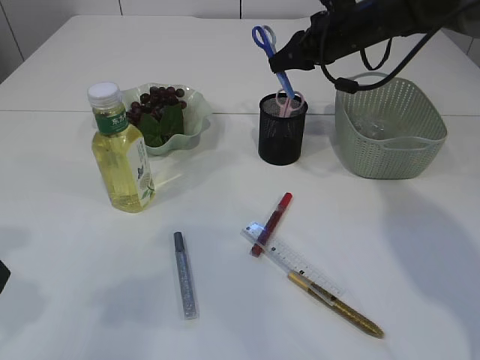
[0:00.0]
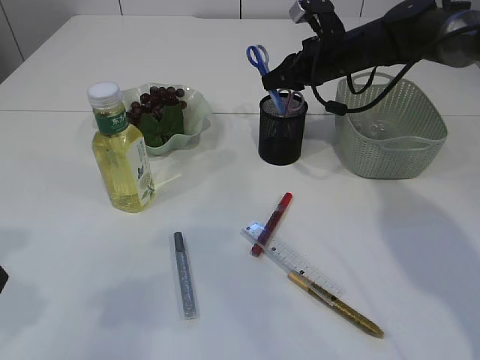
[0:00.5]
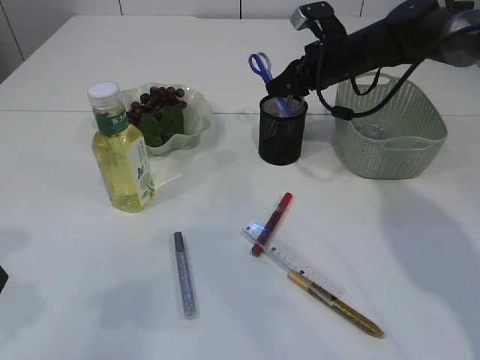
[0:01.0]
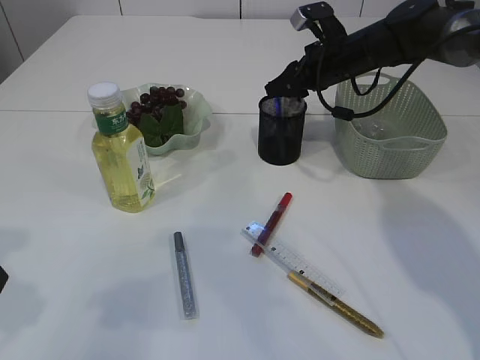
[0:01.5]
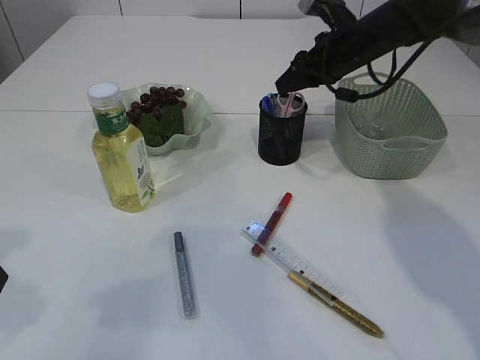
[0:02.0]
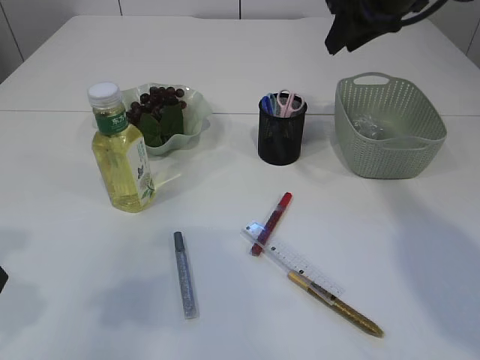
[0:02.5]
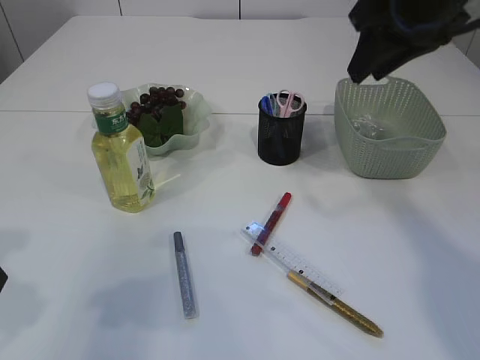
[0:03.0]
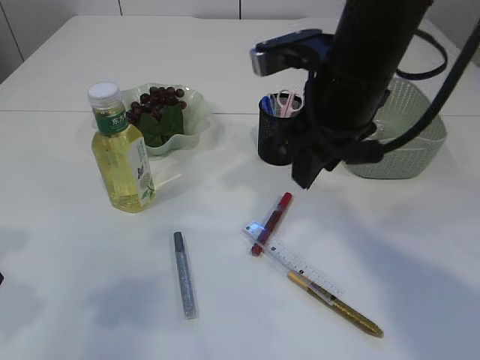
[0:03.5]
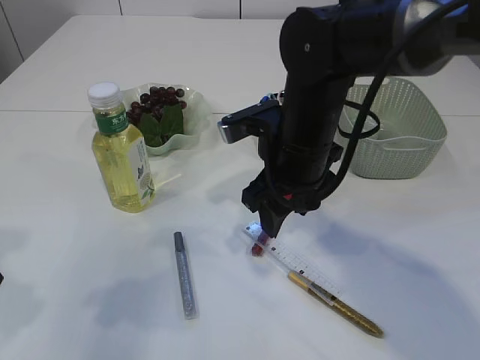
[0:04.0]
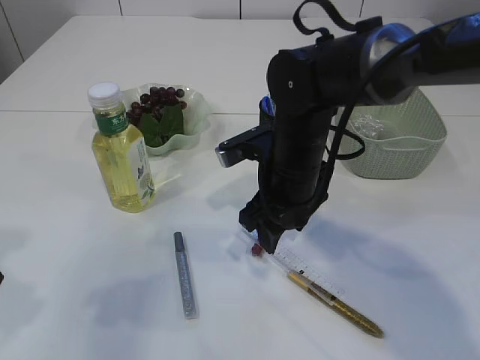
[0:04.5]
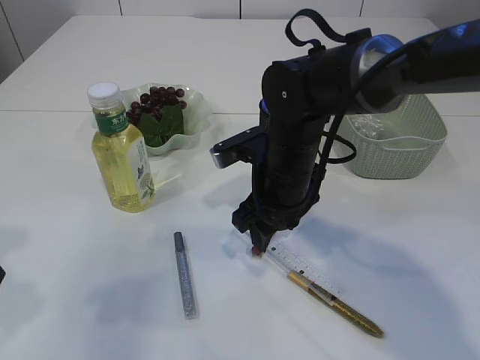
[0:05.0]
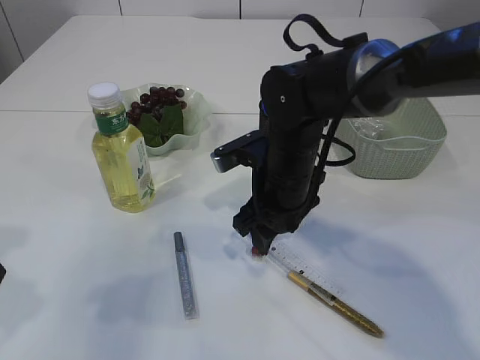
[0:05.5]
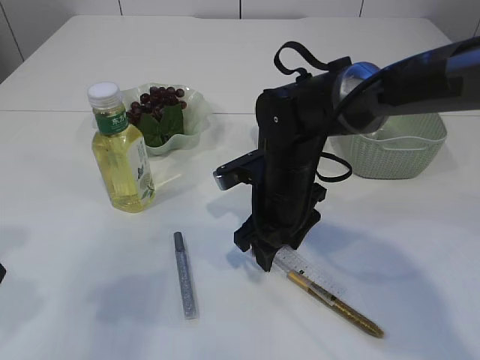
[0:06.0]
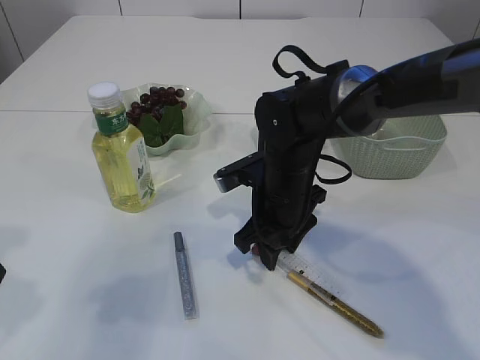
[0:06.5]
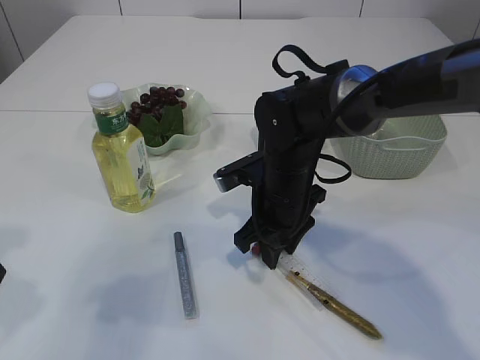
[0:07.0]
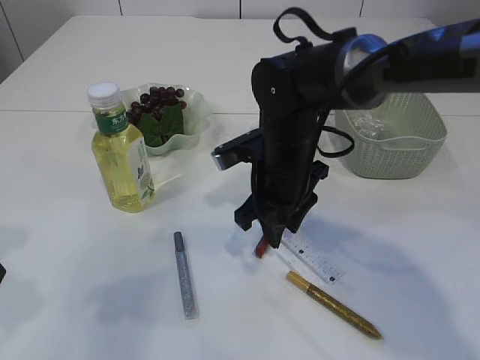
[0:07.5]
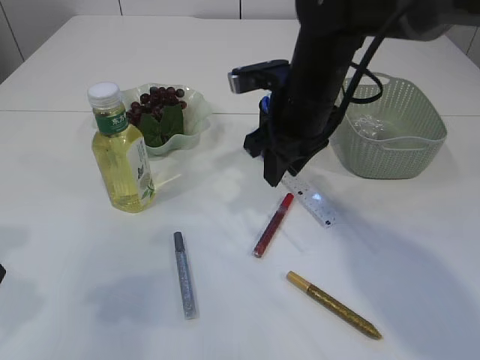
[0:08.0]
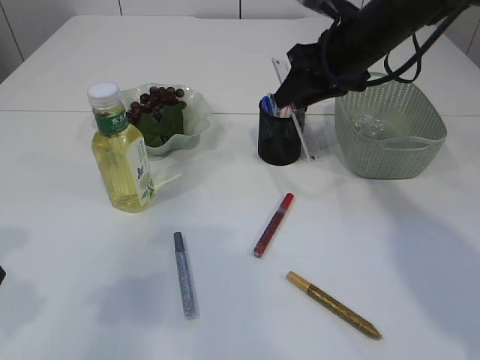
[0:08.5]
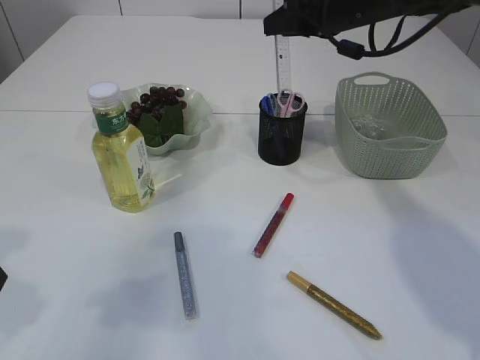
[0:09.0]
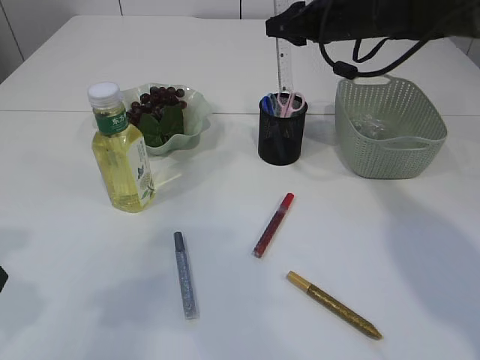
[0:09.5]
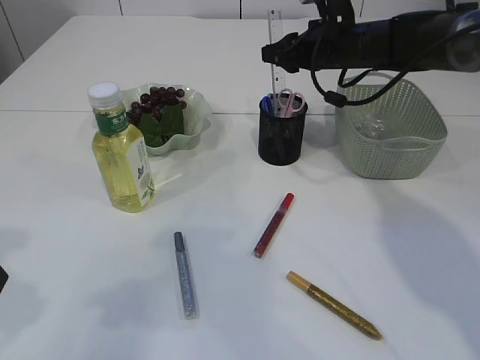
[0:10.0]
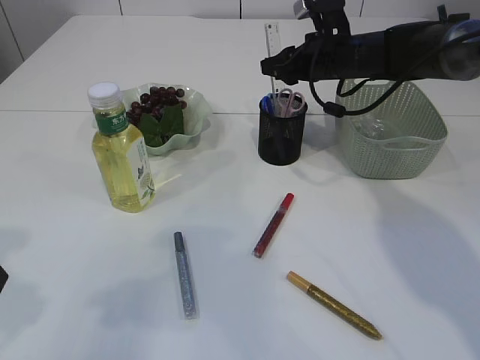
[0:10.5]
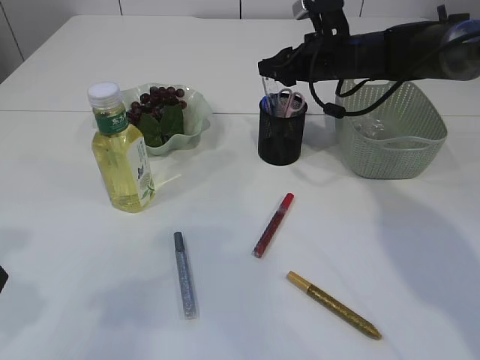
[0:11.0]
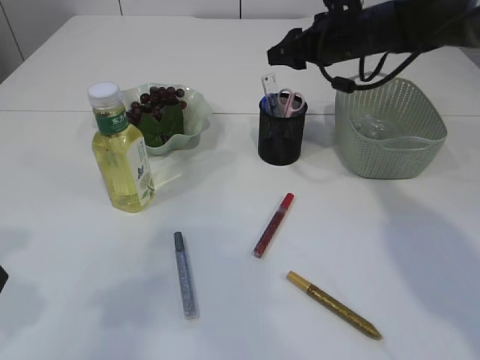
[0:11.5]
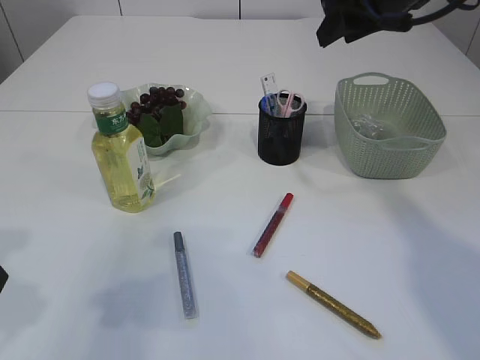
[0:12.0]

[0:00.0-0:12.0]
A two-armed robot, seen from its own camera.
Step, 0:00.0 to 0:02.0: Place the blue scissors into the pen holder.
Step, 0:02.5 to 0:07.5: pick up the ruler.
Step, 0:08.0 to 0:11.5: Place the ruler into the pen holder.
0:00.0 to 0:02.0: The grippers make only small movements.
0:02.0 to 0:04.0: The right gripper heads backward and to the left, covering about 20 cm, and opens up.
0:04.0 to 0:06.0: The right gripper is displaced downward by about 10 cm.
0:06.0 to 0:08.0: The right gripper goes about 10 cm upward, and closes up.
0:08.0 to 0:10.0: The right gripper shifts roughly 15 cm forward and to the right.
0:10.0 to 0:12.0: The right gripper moves upward and backward, about 15 cm.

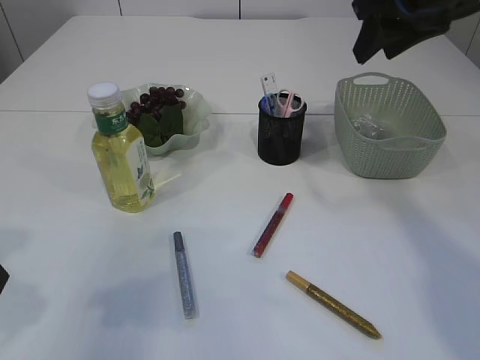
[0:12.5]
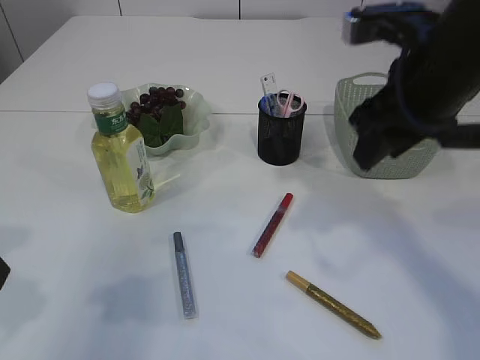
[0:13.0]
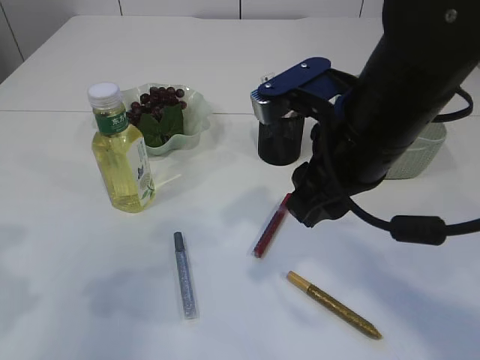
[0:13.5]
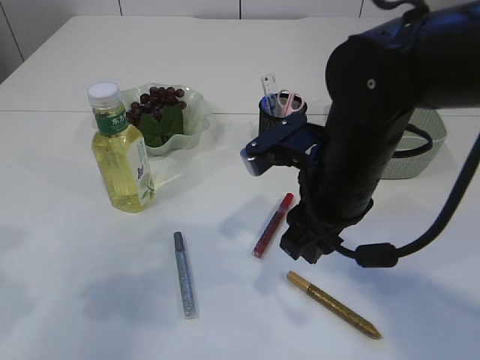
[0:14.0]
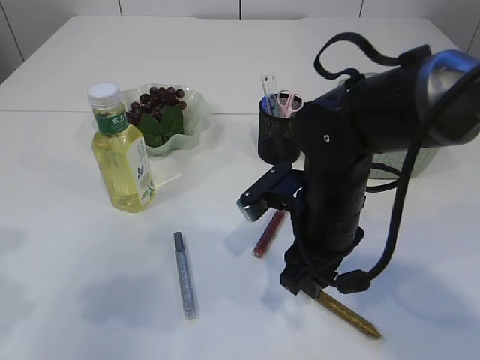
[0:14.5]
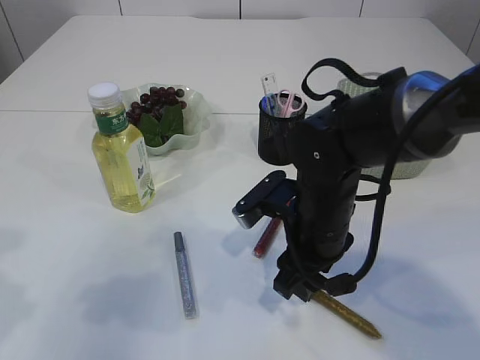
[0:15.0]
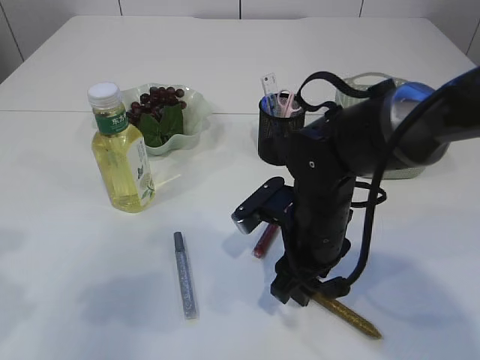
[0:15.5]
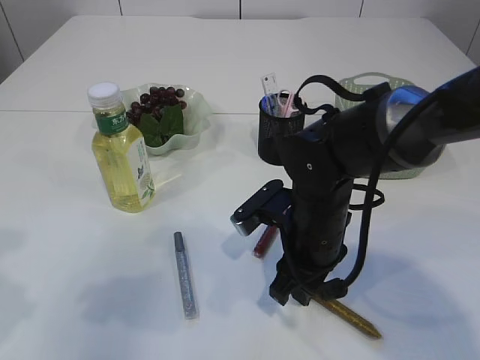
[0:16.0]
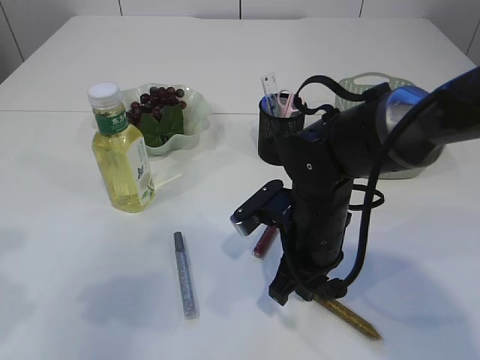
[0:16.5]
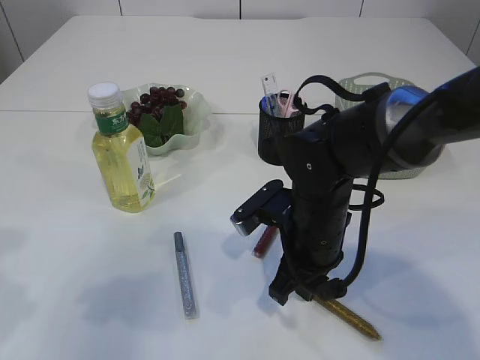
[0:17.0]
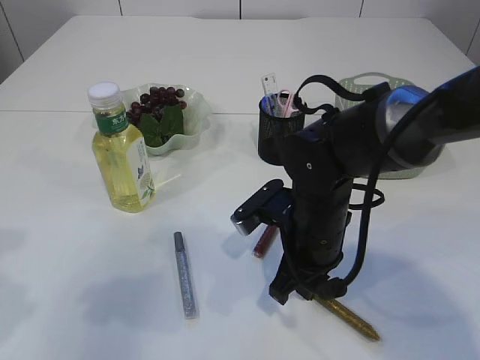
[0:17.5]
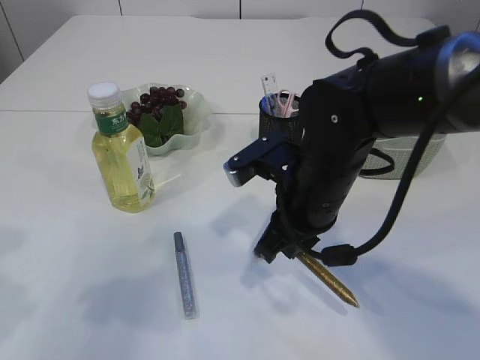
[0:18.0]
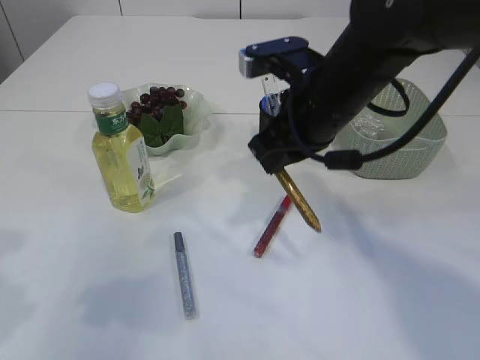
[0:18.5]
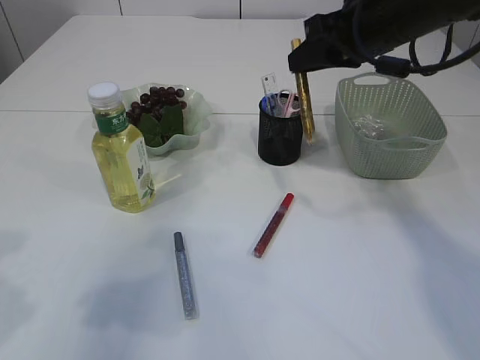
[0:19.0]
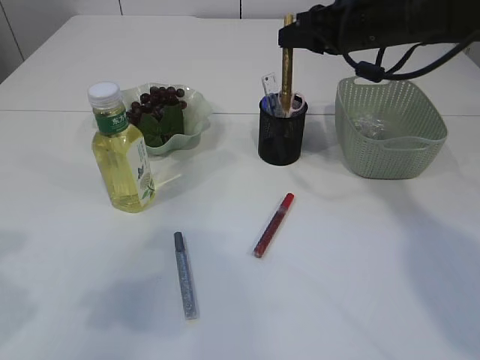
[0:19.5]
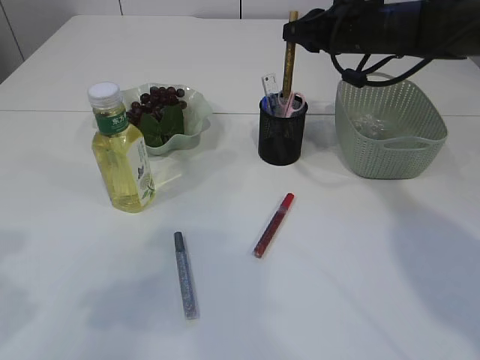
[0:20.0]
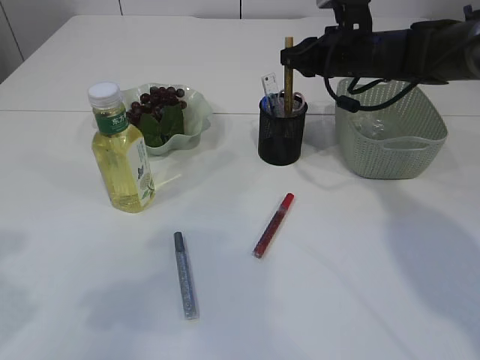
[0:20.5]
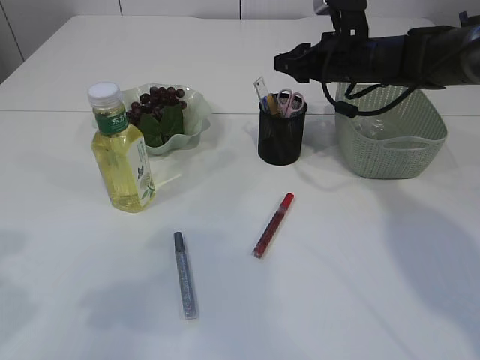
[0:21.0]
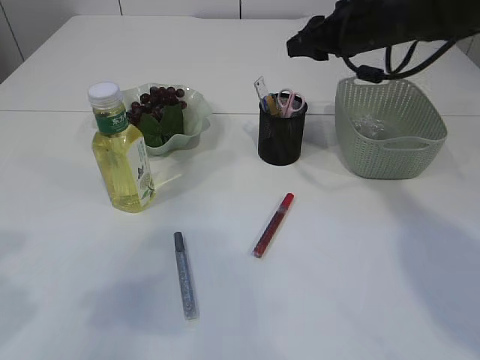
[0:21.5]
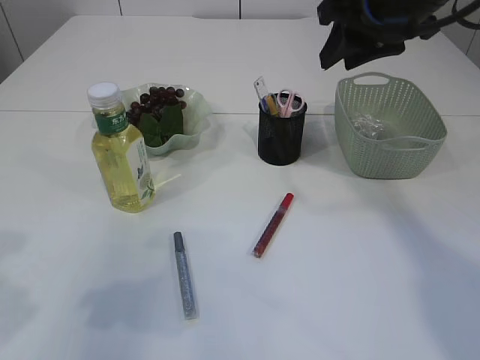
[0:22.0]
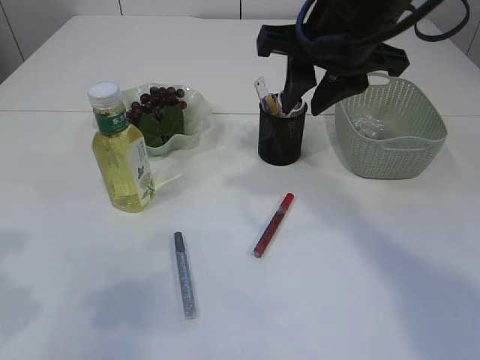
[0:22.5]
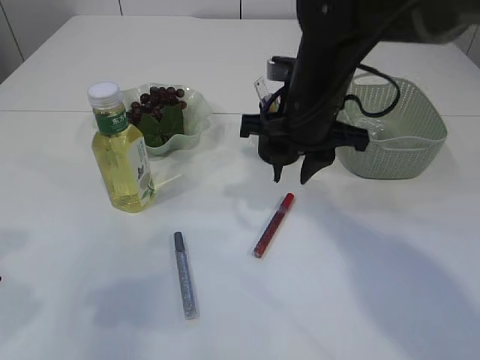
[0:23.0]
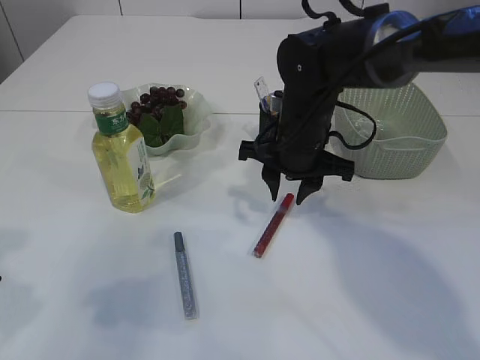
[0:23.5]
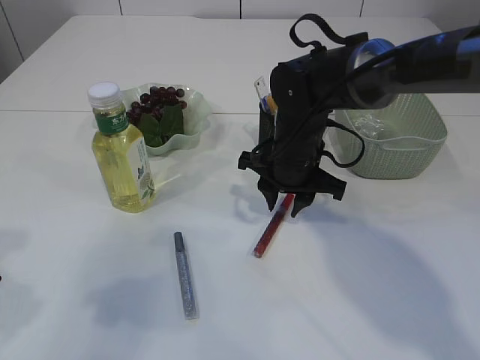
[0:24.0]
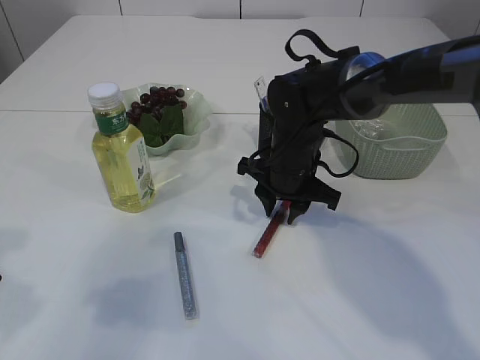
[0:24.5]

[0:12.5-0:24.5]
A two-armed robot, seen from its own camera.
Step, 0:12.5 to 0:18.0: pick up the yellow glue.
Step, 0:18.5 to 0:21.0: place the yellow glue into the pen holder.
0:12.5 to 0:14.5: The right gripper travels downward, to the left and backward by about 25 cm.
0:14.5 to 0:16.5: The right gripper closes its fingers.
0:16.5 to 0:18.5: The right gripper heads upward, covering approximately 15 cm.
0:18.5 to 0:20.5: The right gripper heads forward and to the right, covering roughly 20 cm.
0:20.5 to 0:22.5: The right gripper moves backward, upward and to the left, approximately 20 cm, and opens up.
0:22.5 to 0:24.5: The right gripper goes roughly 20 cm downward.

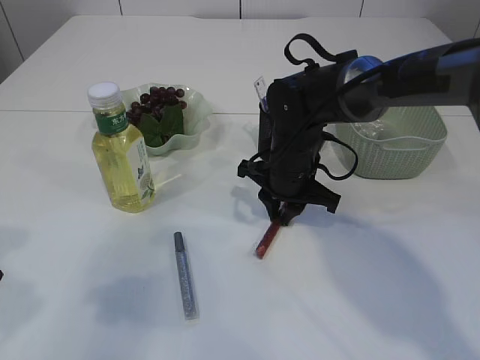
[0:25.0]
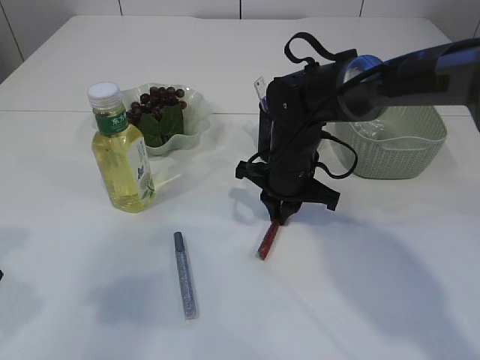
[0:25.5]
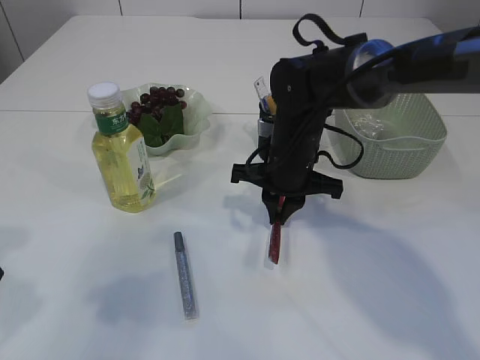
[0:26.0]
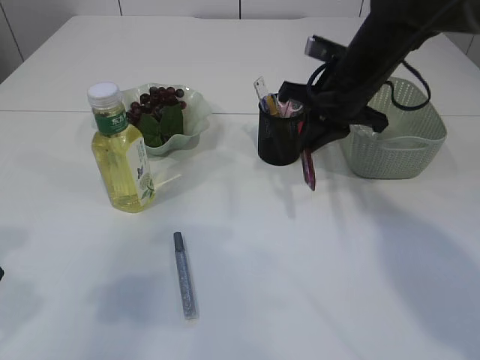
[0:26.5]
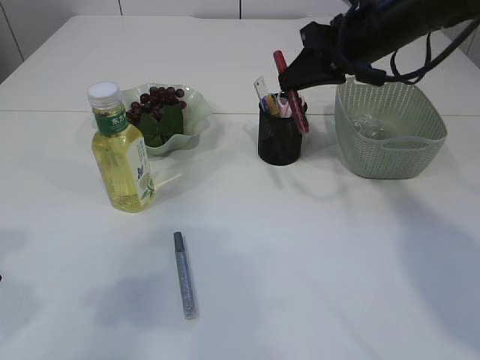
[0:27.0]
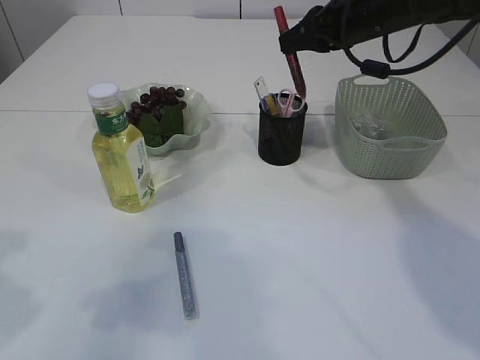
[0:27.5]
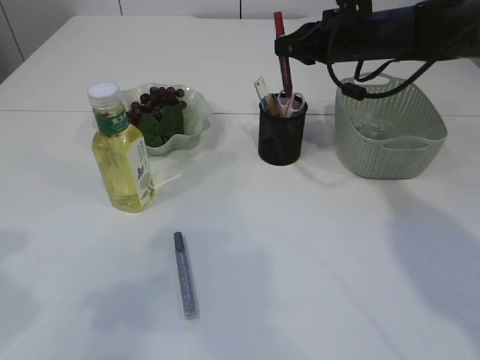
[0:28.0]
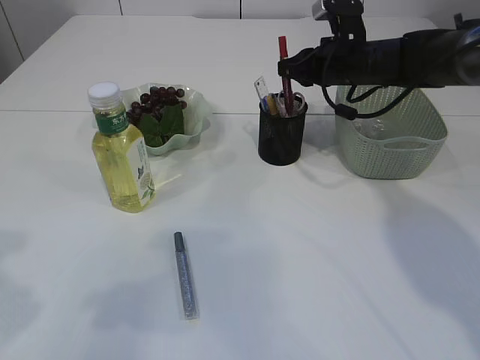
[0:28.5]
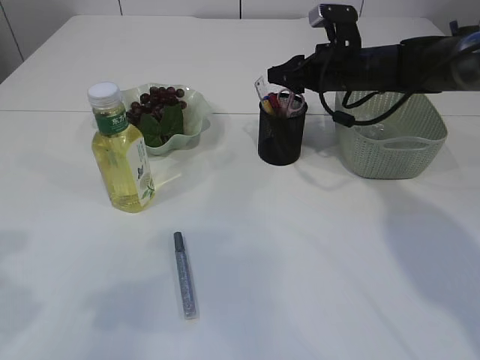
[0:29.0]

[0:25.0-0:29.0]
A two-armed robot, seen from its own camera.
0:25.0 to 0:27.0: The right gripper moves upward and to the right, some 20 cm.
0:27.0 to 0:29.0: The right gripper is displaced downward and forward by approximately 10 cm, and opens.
